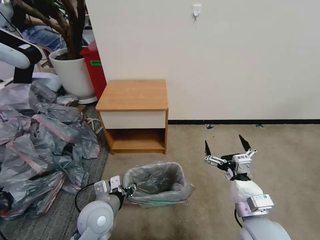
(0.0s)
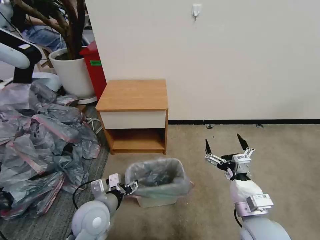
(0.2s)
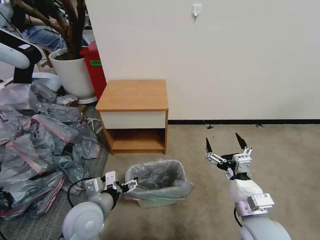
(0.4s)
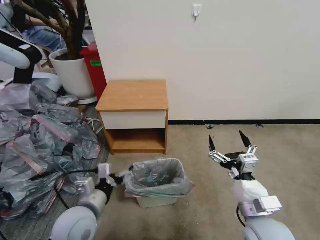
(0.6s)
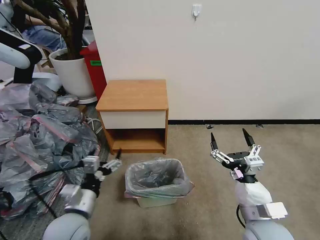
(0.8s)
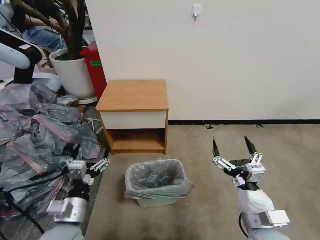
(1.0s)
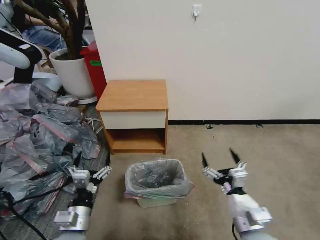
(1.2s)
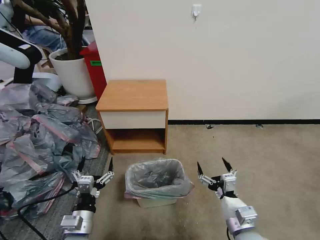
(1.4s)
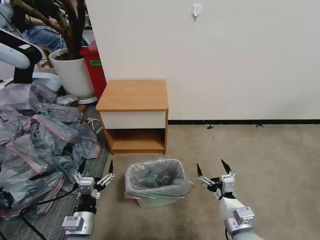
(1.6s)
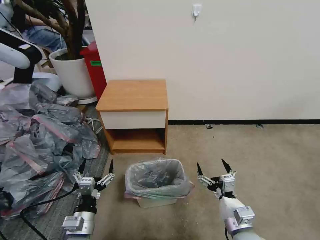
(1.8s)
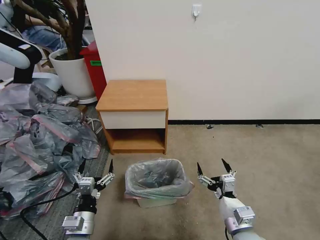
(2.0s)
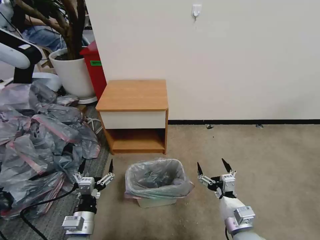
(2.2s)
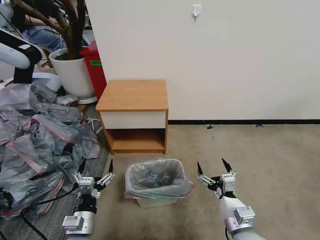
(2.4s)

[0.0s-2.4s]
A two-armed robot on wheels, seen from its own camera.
Task of the whole recording: Pick up the garbage bag from the table and place it over the trash can.
0.0s to 1.2s: The left gripper shifts some 10 cm backward and to the left, and opens its fingers.
1.2s to 2.4s: The right gripper moves downward, about 5 cm.

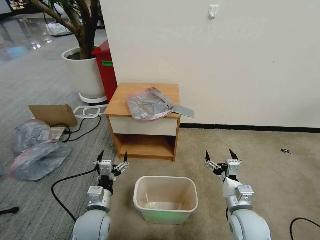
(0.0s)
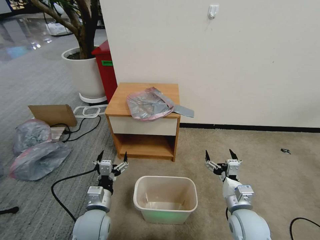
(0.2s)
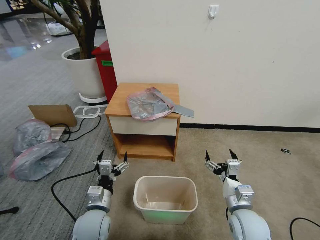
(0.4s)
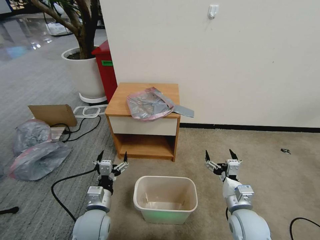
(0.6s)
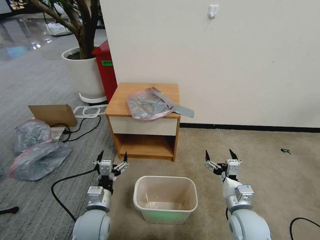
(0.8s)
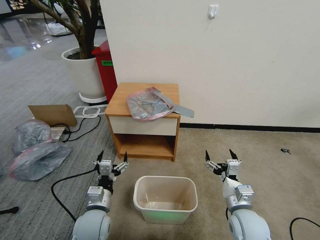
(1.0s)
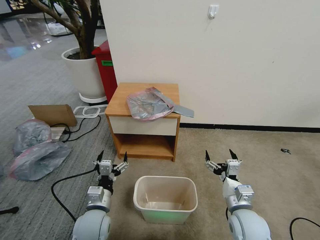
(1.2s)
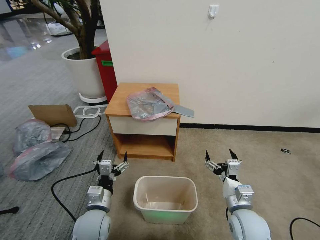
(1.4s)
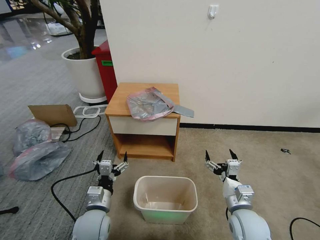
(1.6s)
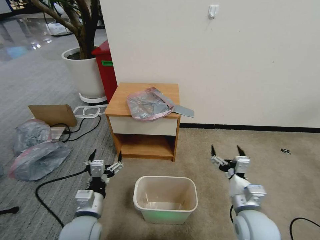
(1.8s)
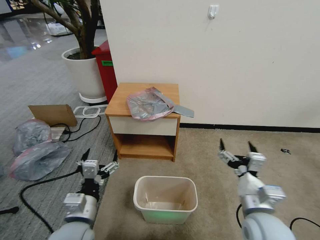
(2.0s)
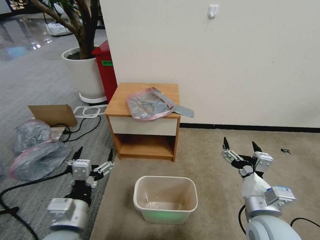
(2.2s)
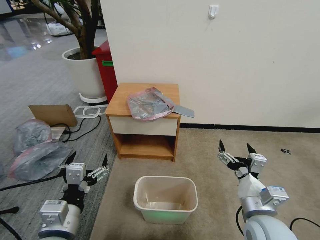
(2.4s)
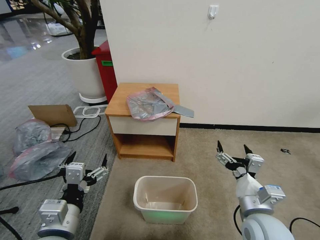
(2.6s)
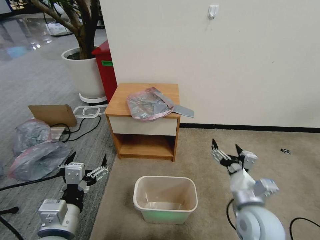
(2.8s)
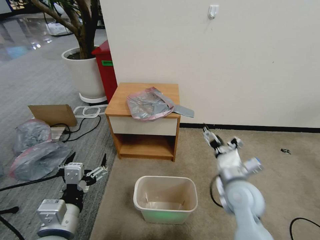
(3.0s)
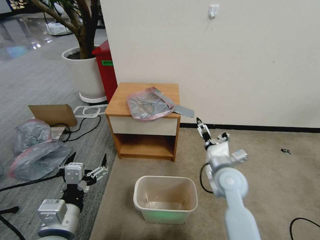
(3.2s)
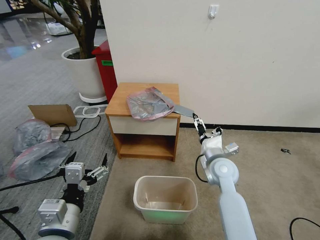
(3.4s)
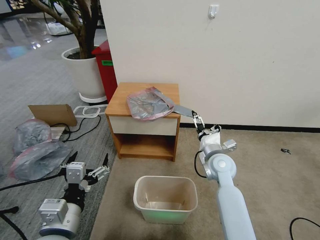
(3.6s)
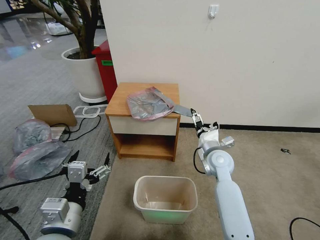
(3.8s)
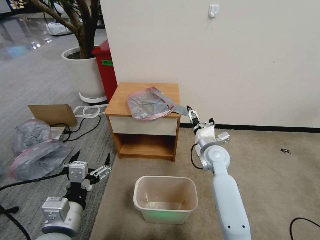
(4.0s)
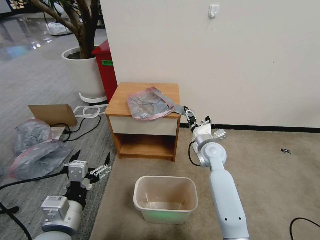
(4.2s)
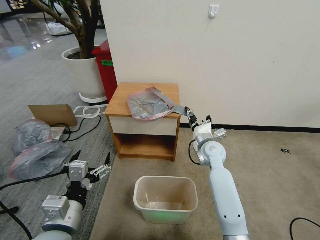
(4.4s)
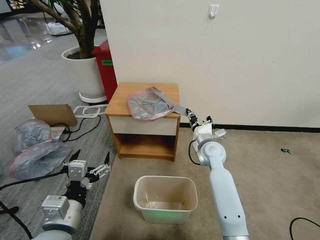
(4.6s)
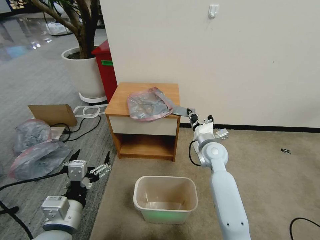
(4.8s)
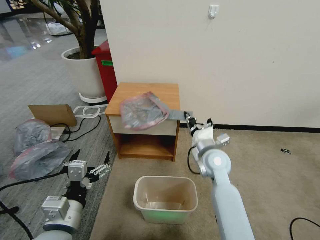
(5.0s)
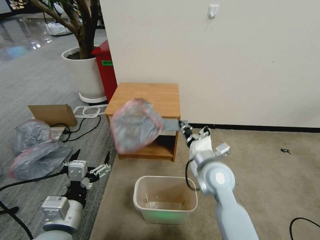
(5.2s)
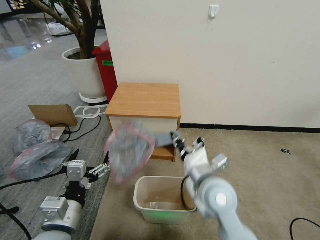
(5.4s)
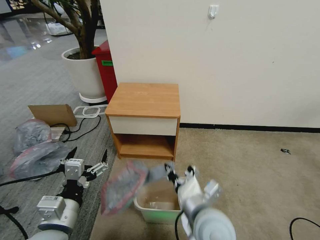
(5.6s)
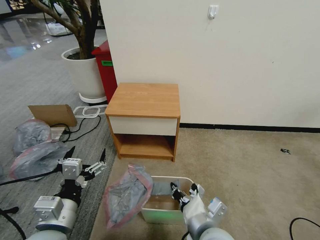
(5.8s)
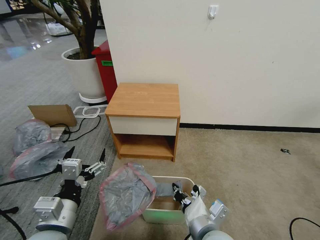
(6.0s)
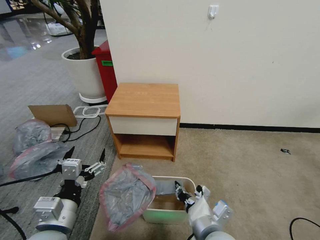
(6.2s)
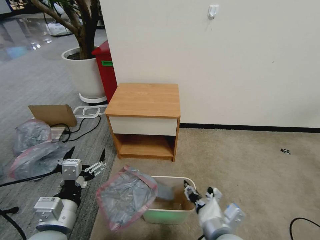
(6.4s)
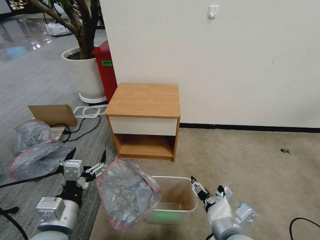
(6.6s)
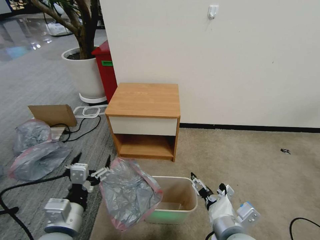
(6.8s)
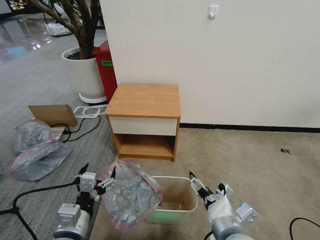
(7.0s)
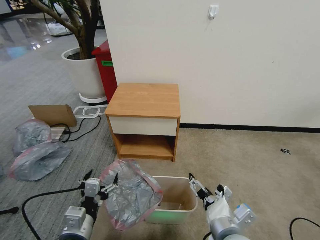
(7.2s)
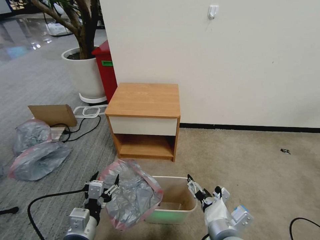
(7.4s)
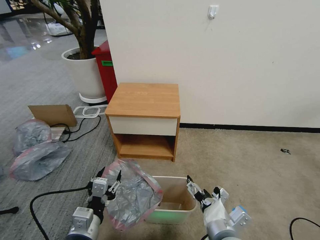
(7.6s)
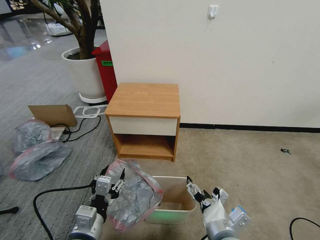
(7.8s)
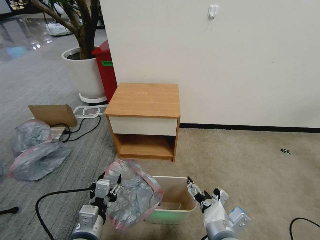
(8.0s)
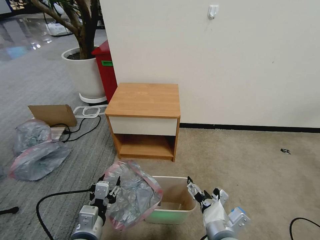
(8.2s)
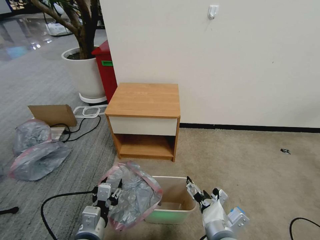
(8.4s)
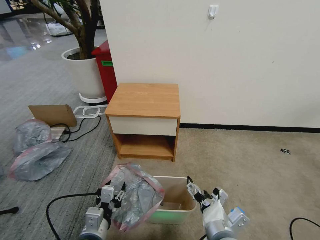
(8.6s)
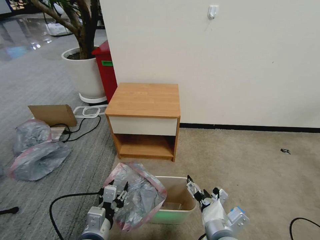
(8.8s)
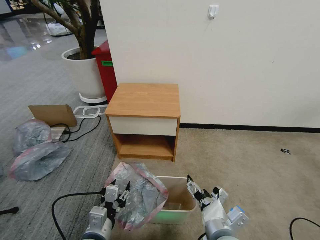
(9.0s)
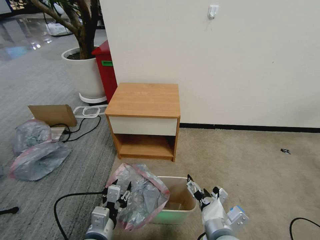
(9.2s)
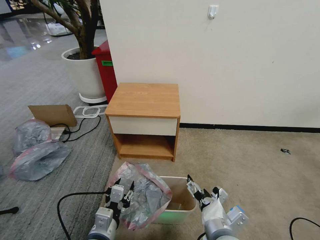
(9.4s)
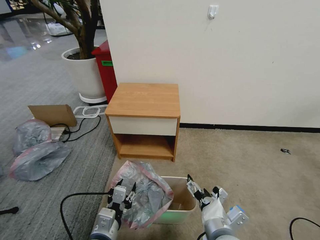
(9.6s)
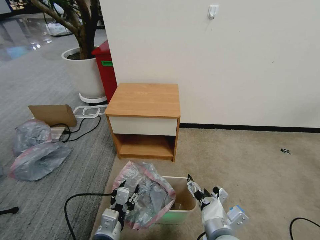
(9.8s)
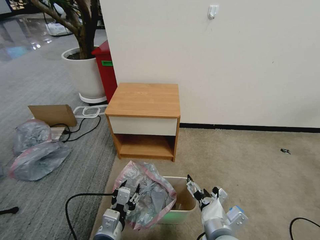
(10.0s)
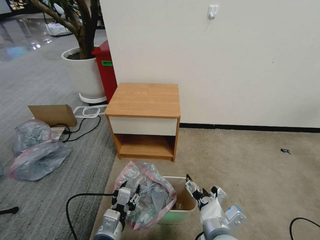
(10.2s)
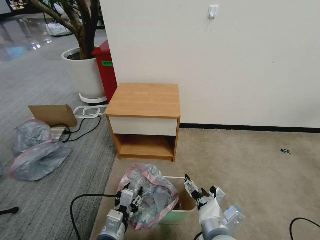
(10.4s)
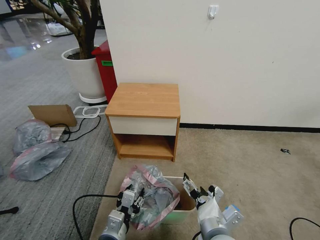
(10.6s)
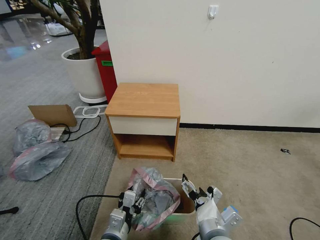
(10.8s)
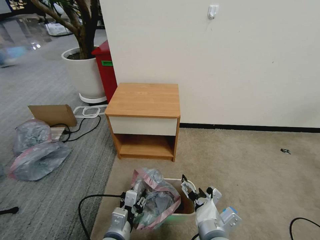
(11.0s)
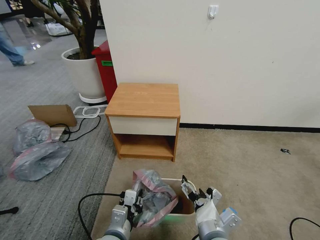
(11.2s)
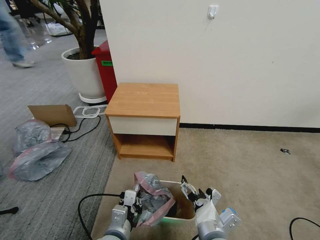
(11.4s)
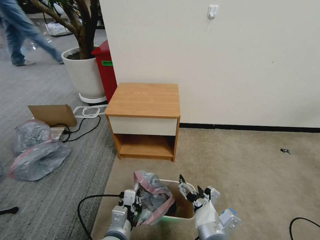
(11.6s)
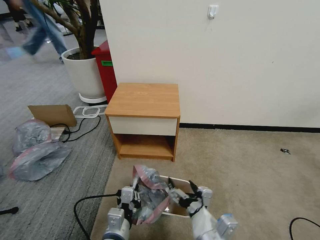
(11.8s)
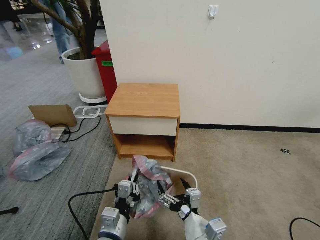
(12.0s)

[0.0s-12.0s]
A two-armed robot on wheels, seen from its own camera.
Task of the whole recording: Pick up the garbage bag from the table and place it over the trash can.
1.6s to 3.0s: The left gripper shifts approximately 15 cm upward and backward. Meanwhile the right gripper is displaced upward and forward by approximately 10 cm.
3.0s to 4.4s: The right gripper moves forward, approximately 15 cm, and closes.
4.4s to 6.0s: The right gripper travels backward by about 30 cm, and closes.
6.0s to 7.6s: The right gripper opens up. Meanwhile the left gripper moves downward, some 5 cm, and closes.
7.6s to 9.0s: There are only small adjustments of the grippers.
9.0s to 10.4s: The grippers move only a little.
10.4s to 12.0s: The left gripper closes.

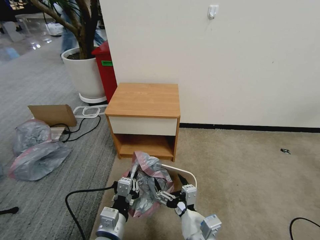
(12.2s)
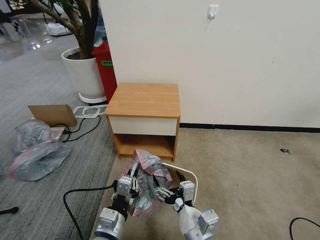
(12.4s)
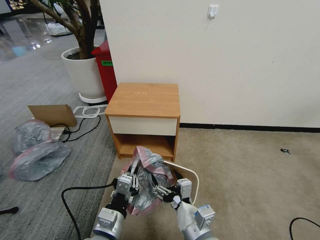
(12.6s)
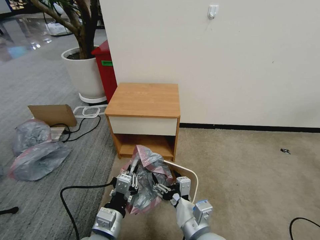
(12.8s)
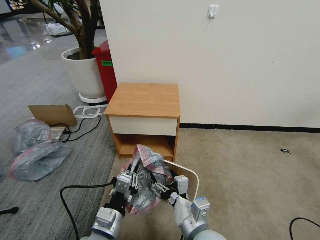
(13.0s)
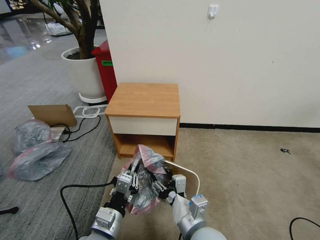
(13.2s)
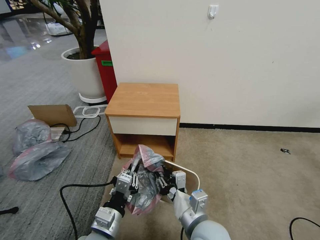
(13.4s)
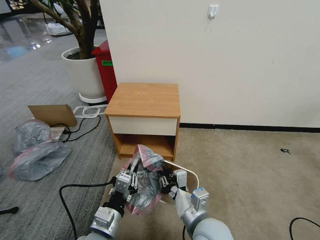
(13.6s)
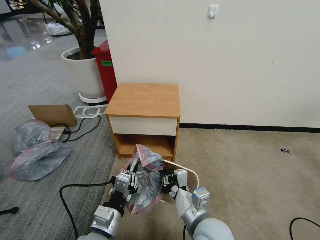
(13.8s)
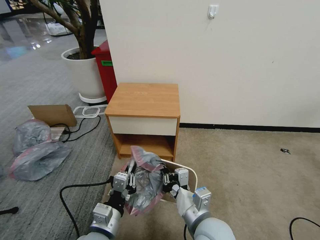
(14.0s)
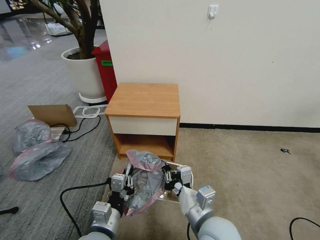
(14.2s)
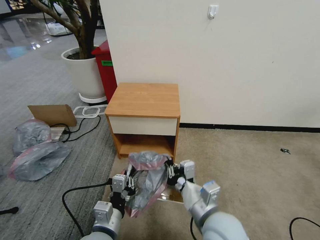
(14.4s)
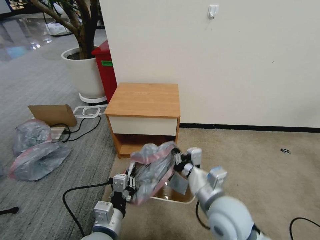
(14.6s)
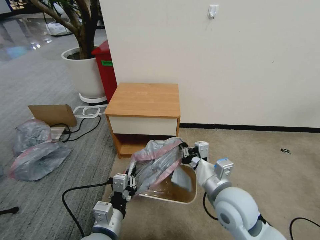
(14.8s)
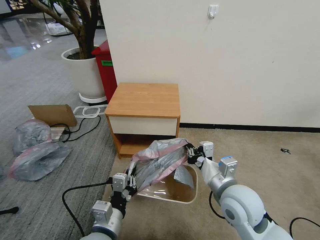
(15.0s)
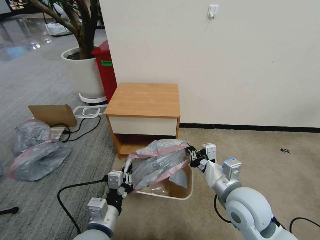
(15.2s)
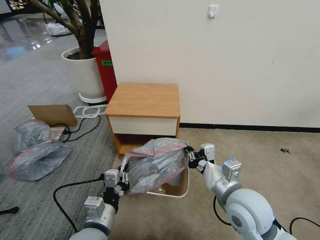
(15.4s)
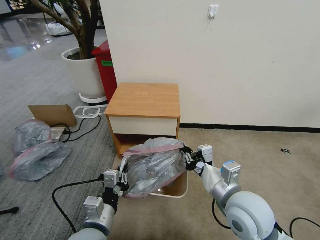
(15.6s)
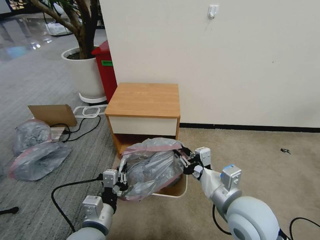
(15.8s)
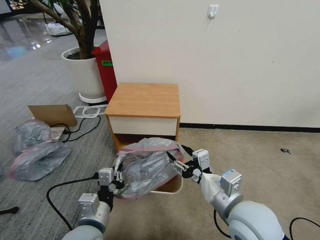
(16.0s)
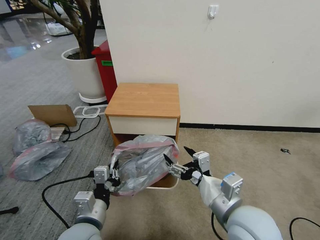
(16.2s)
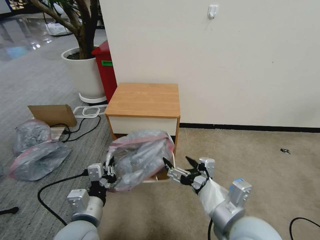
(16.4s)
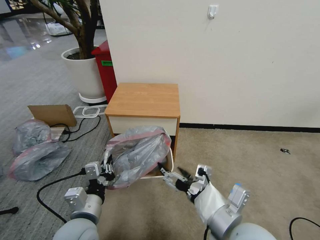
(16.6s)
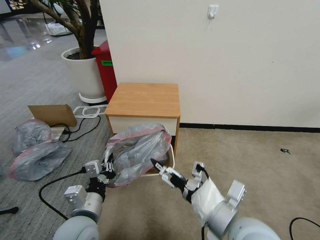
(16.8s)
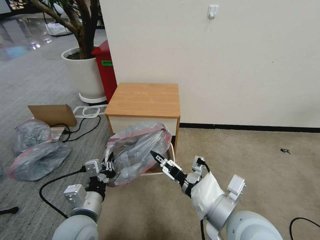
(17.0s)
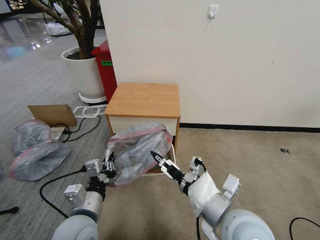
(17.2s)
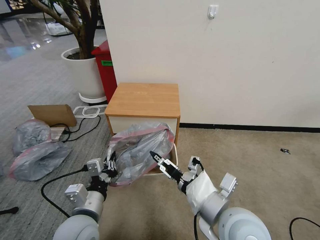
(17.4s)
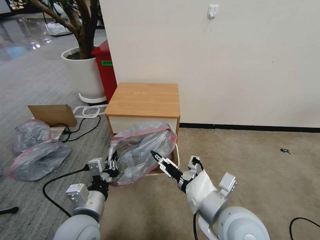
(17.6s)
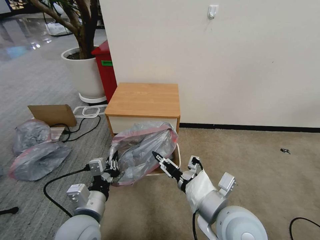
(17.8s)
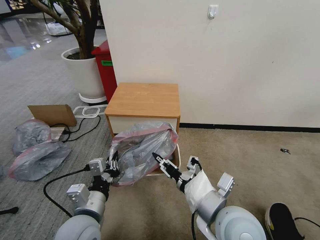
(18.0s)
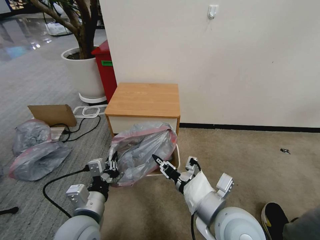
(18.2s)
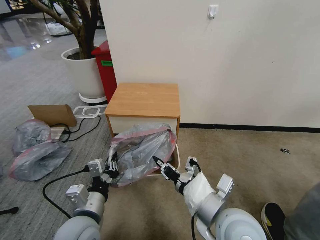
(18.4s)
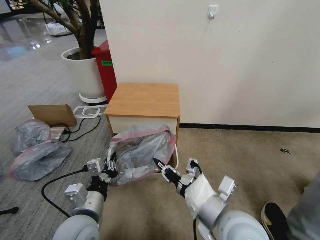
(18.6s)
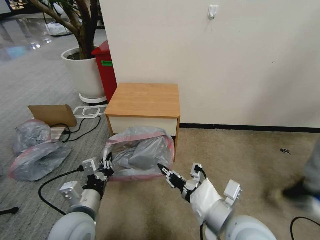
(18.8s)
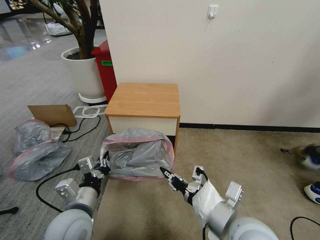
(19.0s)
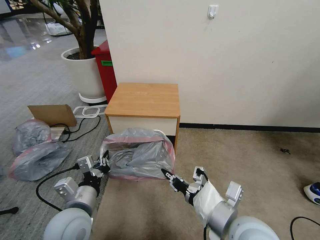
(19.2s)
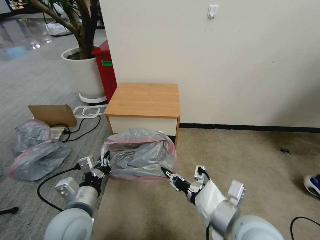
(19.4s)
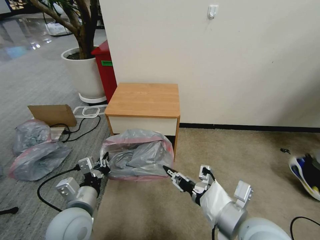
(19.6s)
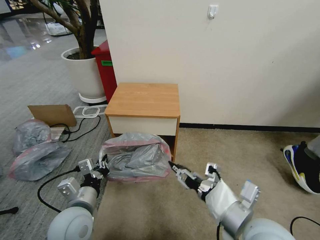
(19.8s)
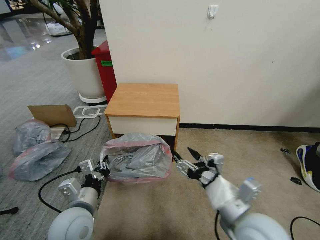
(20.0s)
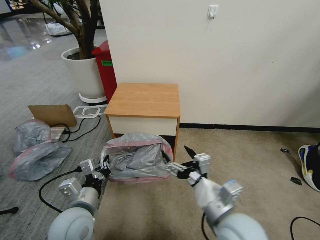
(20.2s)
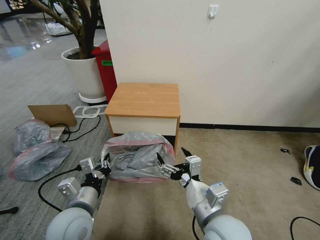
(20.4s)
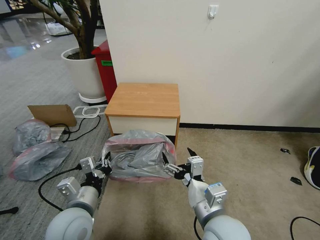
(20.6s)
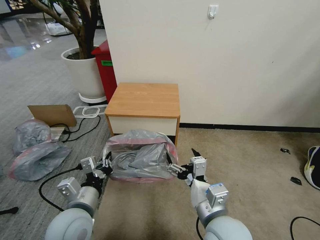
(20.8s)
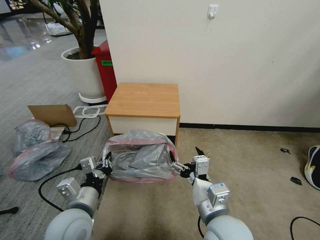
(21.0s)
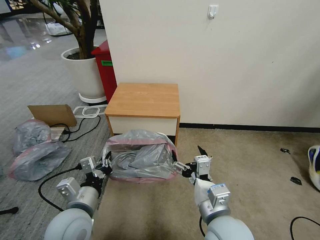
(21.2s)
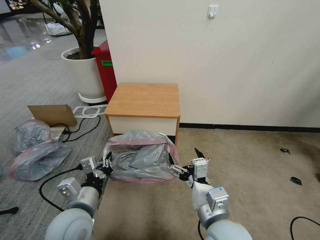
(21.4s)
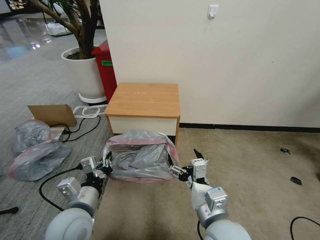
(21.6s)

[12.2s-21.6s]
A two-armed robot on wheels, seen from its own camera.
Task of the whole recording: Pick up the garbage bag from the table and place it over the trash can.
12.2s to 13.8s: The right gripper heads forward, covering roughly 5 cm, and closes up.
13.8s to 15.4s: The right gripper goes about 10 cm to the right, upward and forward.
15.4s to 17.0s: The right gripper moves backward, some 5 cm, and opens up.
17.0s to 18.4s: The right gripper closes its fingers.
18.4s to 20.0s: The right gripper opens up.
20.0s to 21.6s: The right gripper goes roughly 5 cm to the left.
